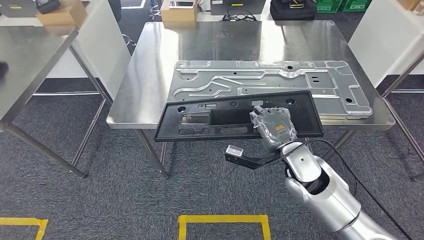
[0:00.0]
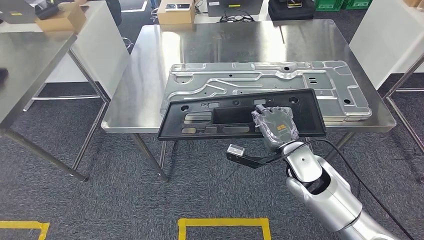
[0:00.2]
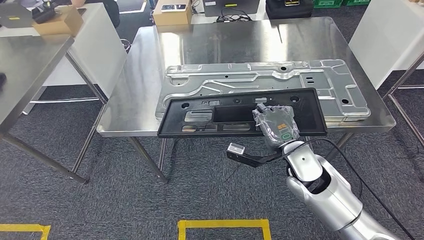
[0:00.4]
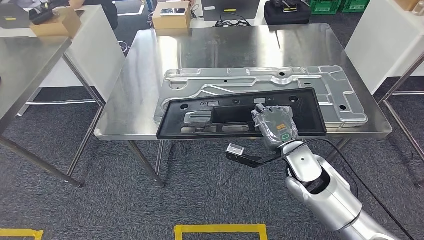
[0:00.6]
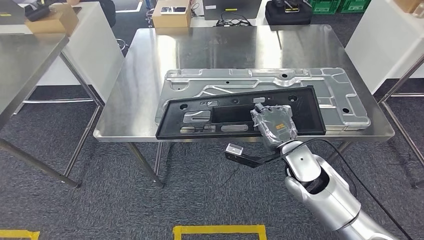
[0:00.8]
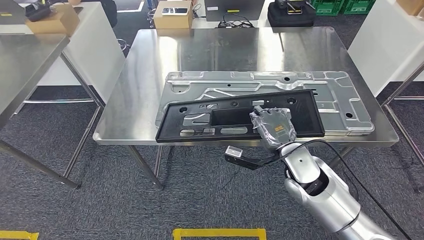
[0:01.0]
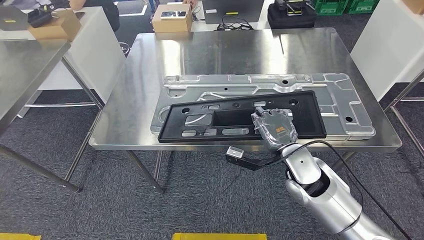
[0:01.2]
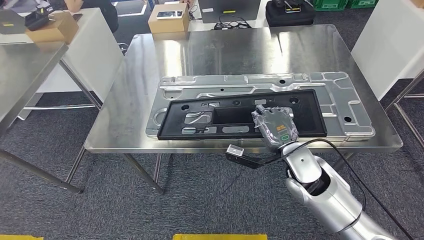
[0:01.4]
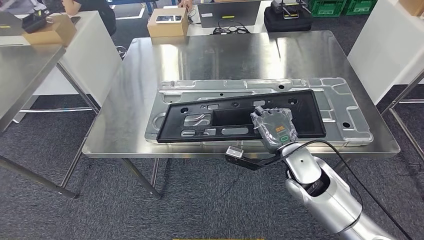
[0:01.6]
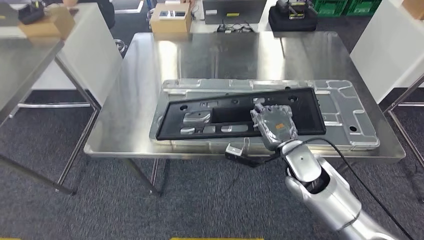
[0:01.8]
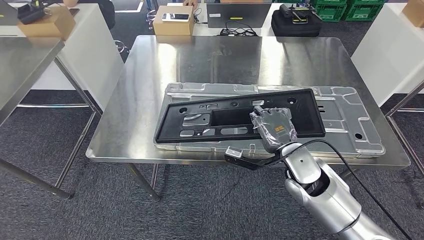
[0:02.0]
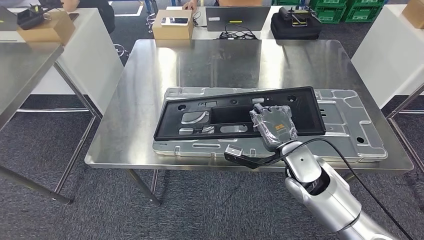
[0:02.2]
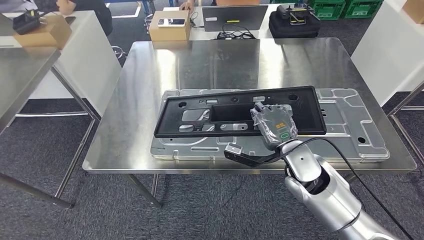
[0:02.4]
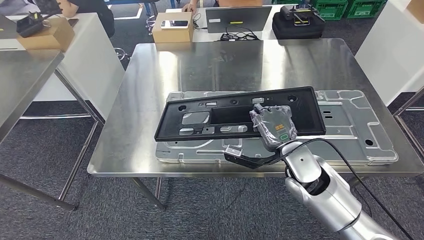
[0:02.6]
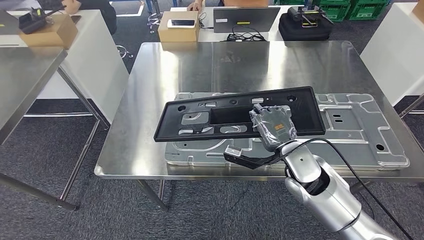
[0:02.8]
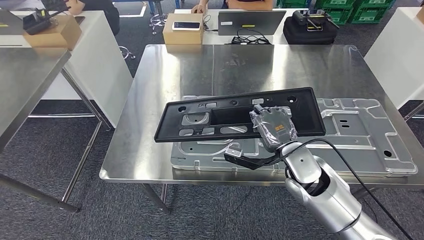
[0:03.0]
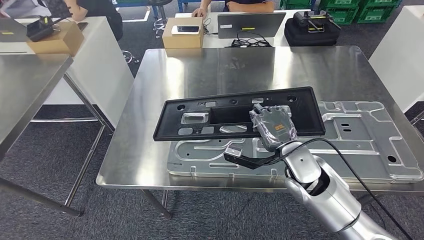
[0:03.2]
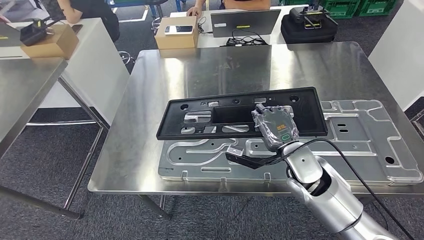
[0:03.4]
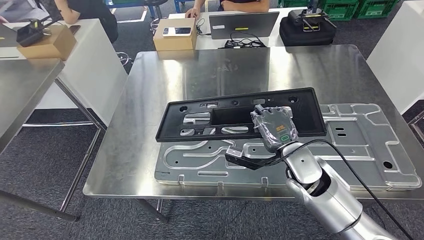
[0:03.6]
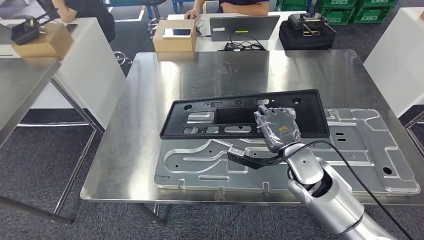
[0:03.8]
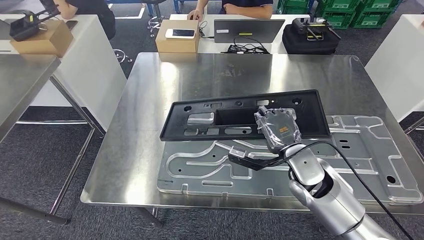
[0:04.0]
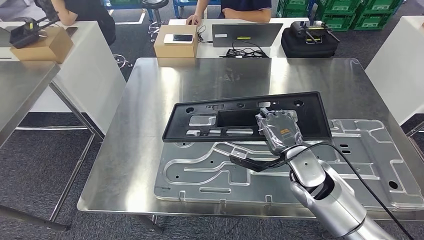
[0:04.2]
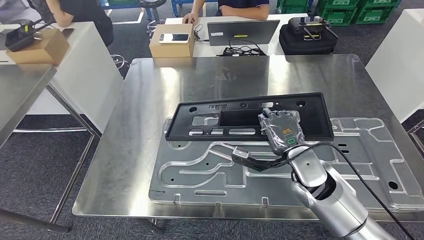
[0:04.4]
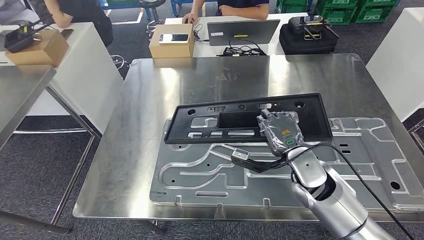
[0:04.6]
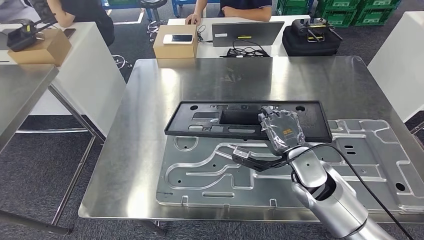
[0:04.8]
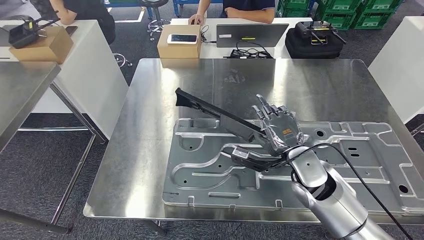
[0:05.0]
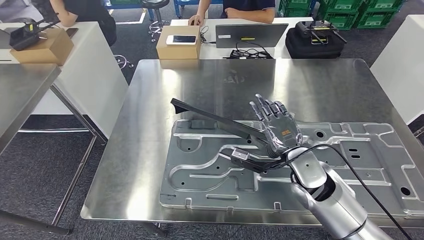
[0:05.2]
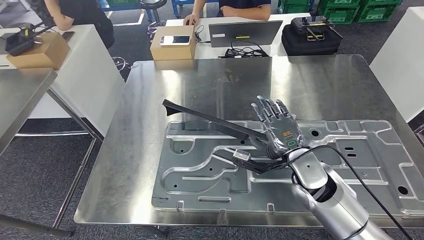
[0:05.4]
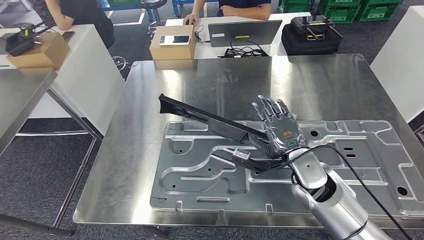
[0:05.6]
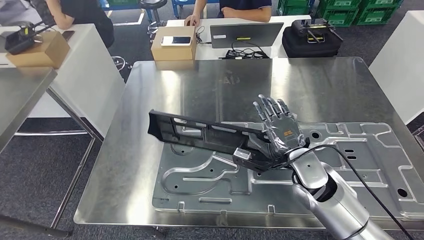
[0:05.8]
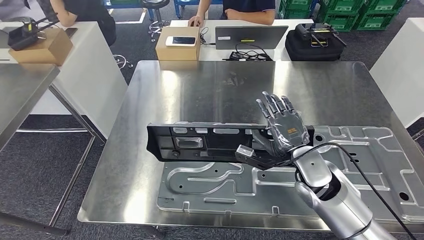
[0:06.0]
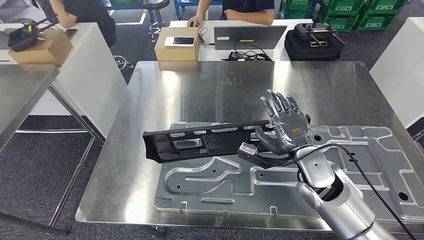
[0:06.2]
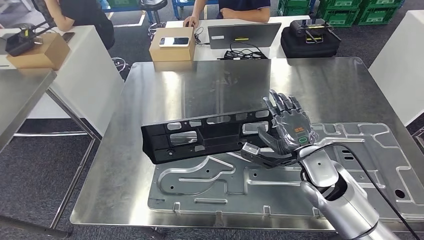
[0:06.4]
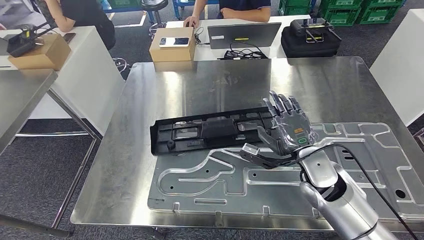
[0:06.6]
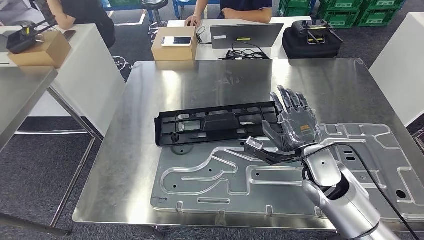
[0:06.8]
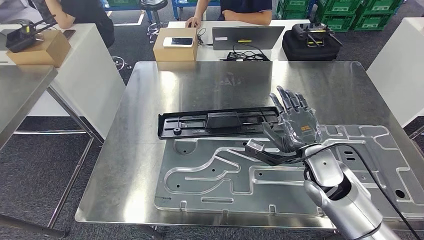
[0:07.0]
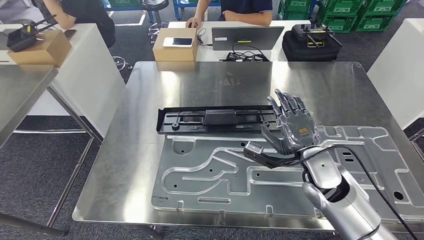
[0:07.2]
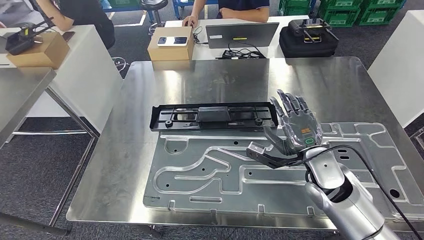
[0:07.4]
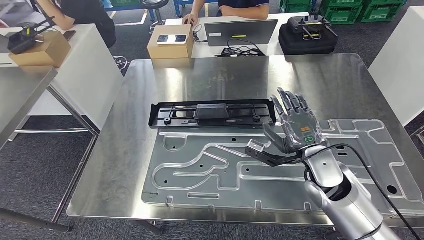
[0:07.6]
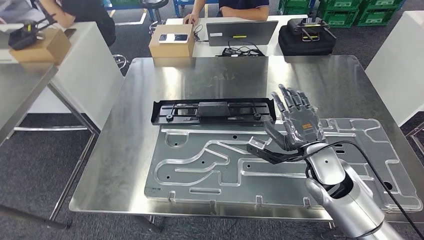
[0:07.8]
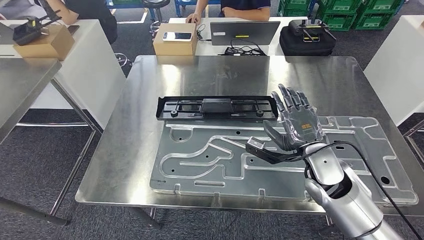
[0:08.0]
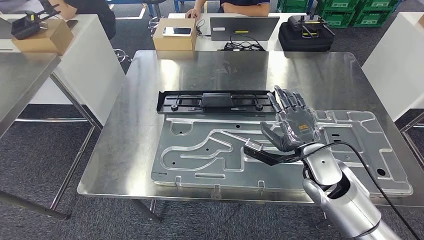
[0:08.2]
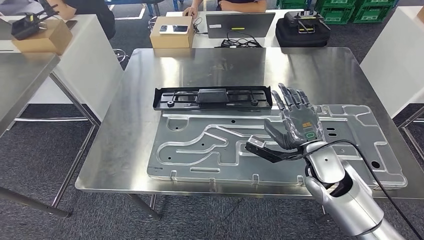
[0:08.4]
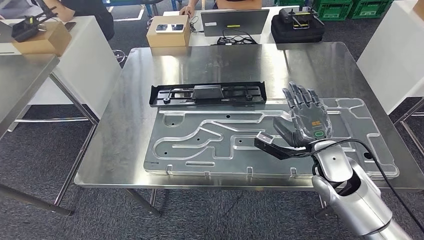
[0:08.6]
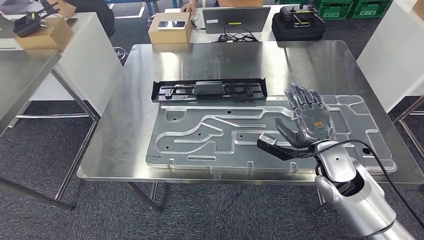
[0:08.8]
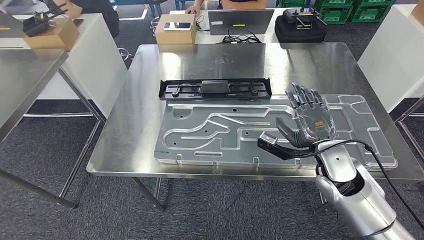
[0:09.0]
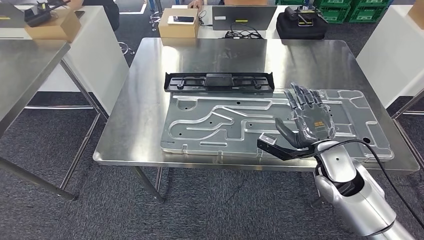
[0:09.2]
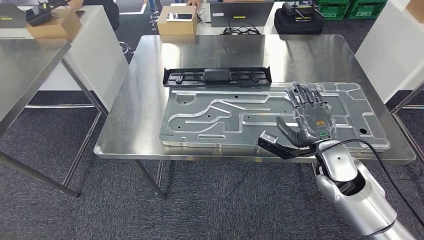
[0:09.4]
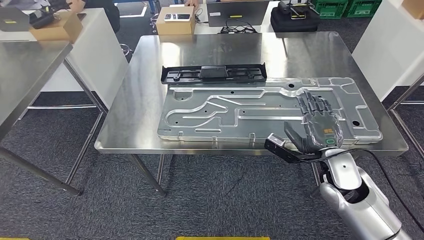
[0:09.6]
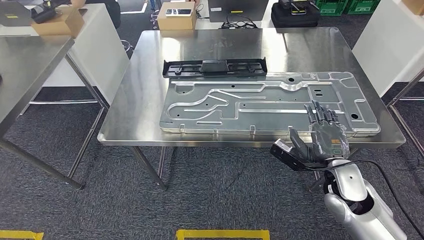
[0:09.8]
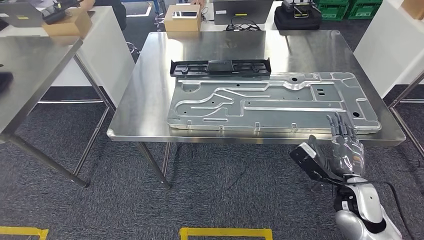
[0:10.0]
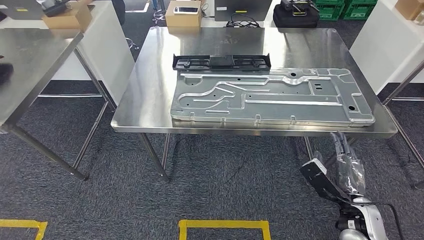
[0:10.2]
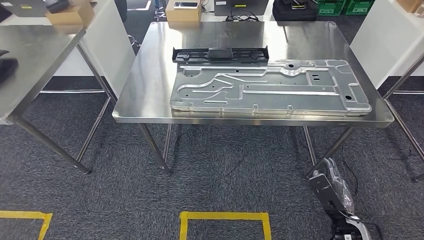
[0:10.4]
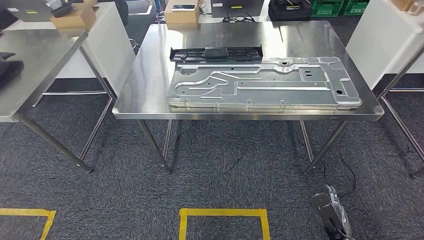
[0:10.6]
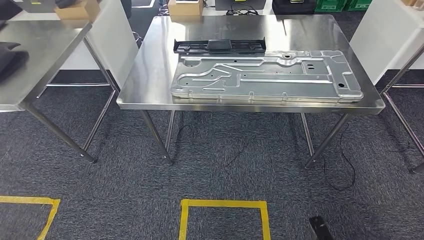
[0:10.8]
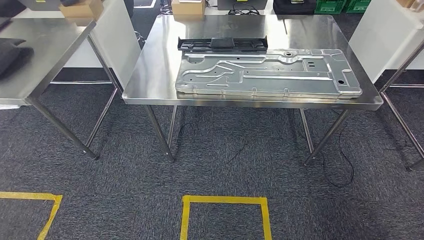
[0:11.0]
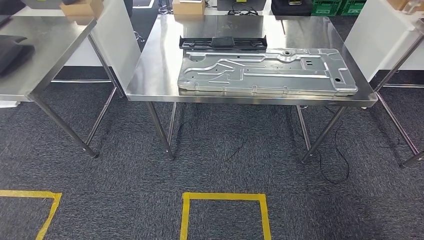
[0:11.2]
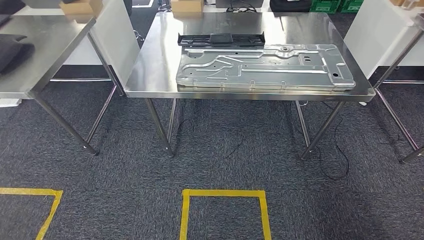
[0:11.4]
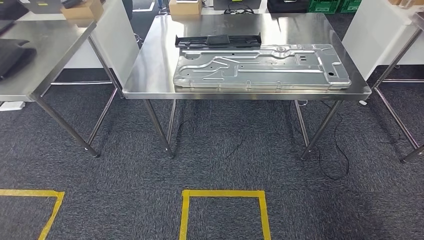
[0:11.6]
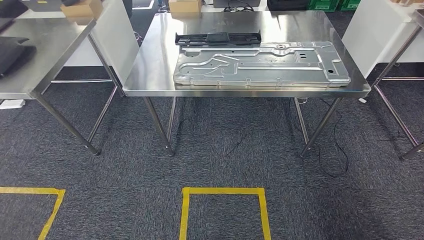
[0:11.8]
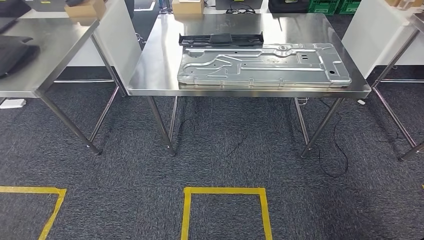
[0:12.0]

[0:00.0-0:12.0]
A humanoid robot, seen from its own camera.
Step, 0:00.0 to 0:10.0: Insert the large parts into the corresponding slots on the workbench.

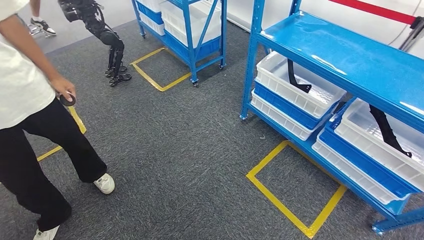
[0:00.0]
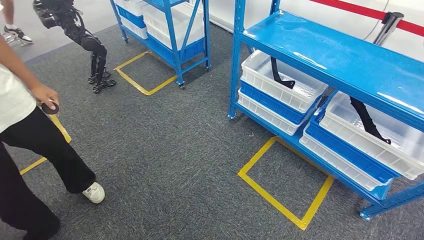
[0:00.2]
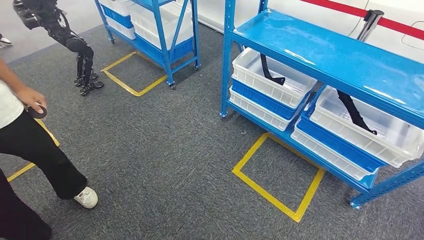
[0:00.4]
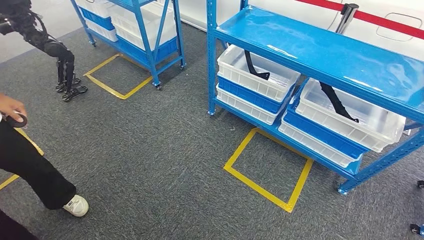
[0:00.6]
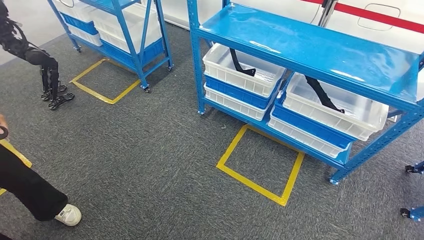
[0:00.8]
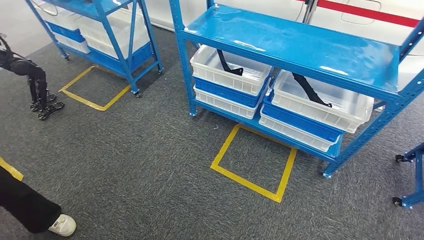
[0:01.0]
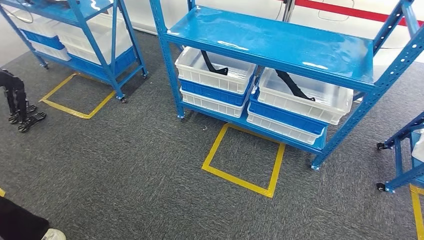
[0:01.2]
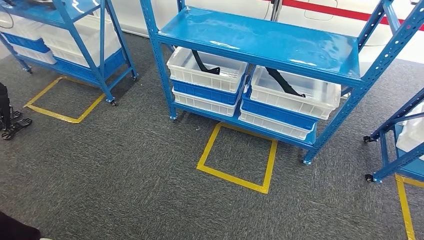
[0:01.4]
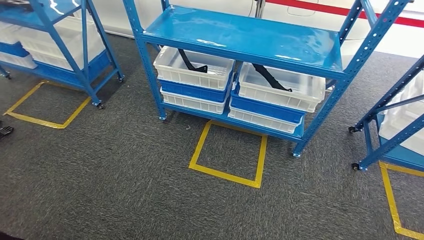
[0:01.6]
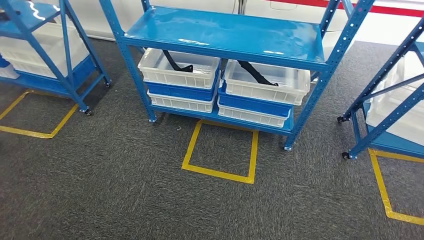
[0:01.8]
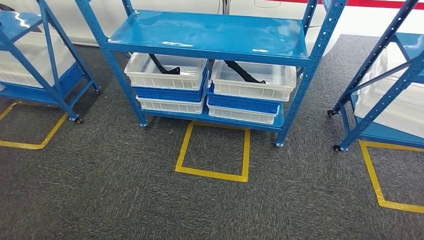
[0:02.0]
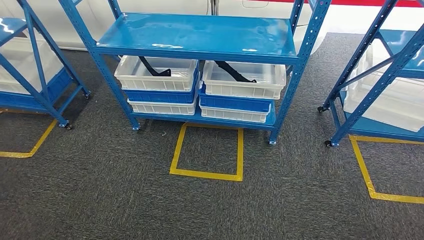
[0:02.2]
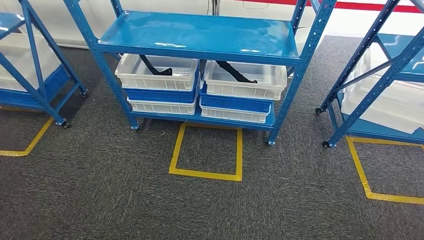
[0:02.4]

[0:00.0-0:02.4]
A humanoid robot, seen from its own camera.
Step, 0:00.0 to 0:02.2: Return to the initial position at the shelf.

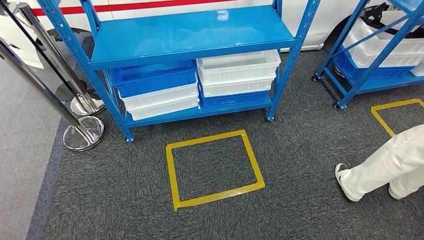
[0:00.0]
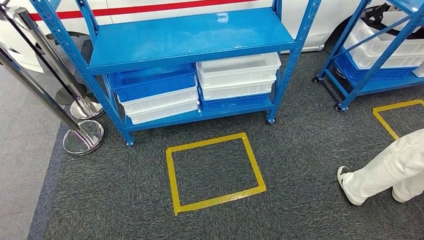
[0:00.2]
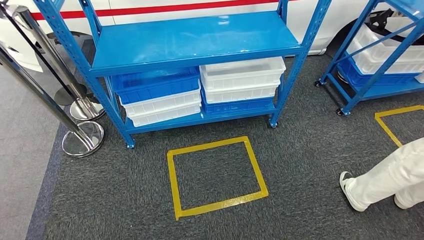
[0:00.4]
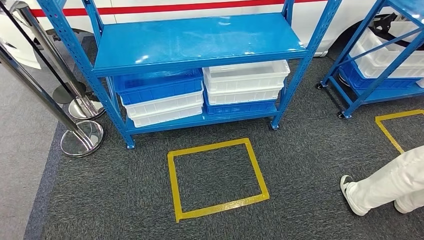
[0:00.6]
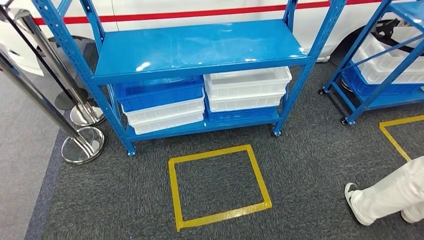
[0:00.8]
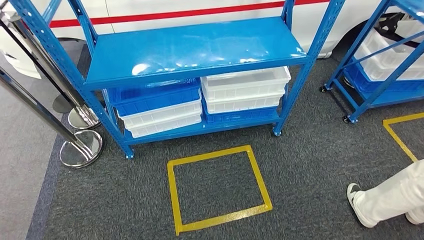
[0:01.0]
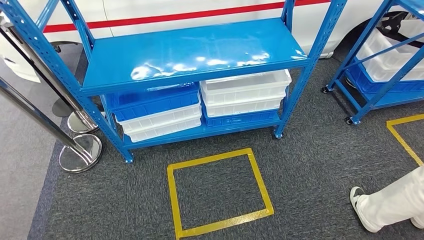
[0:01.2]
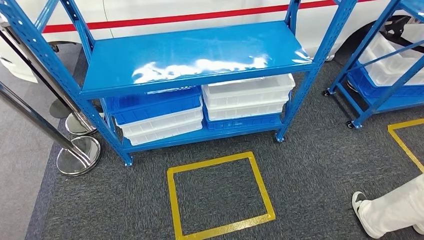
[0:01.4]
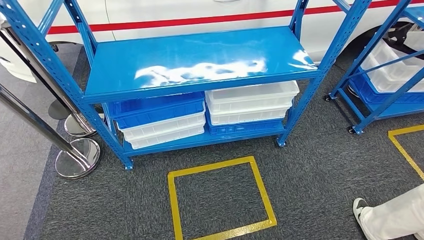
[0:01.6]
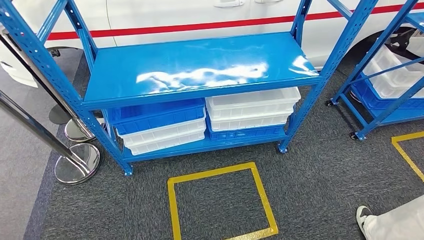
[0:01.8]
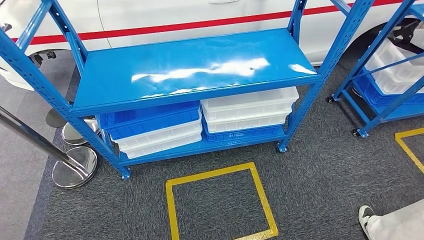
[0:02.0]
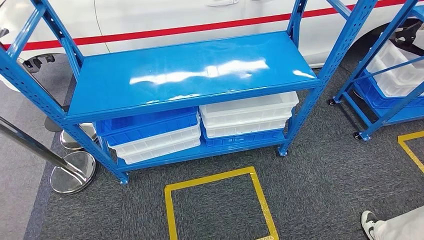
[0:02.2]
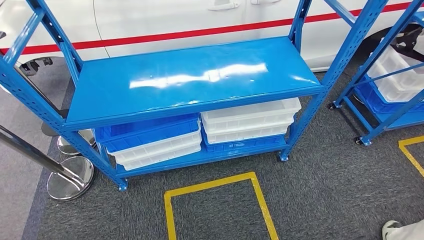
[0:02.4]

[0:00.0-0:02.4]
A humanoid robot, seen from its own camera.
Step, 0:00.0 to 0:02.4: Return to the initial position at the shelf.
